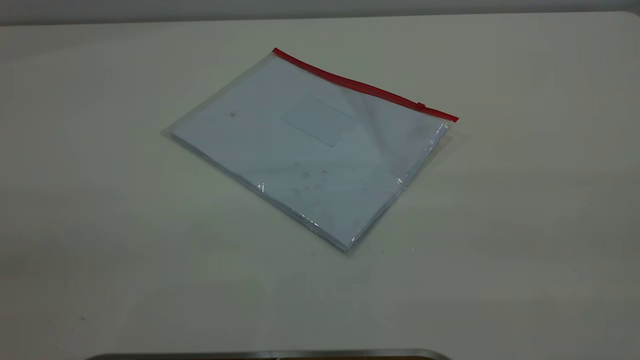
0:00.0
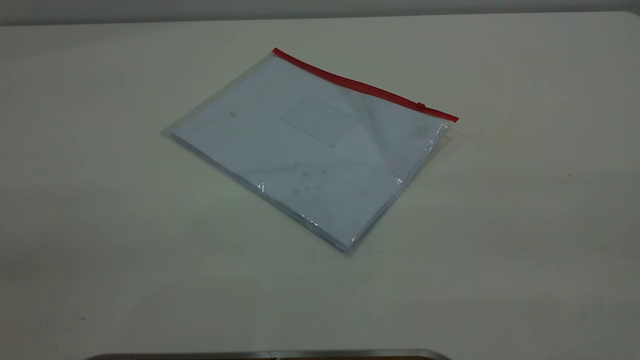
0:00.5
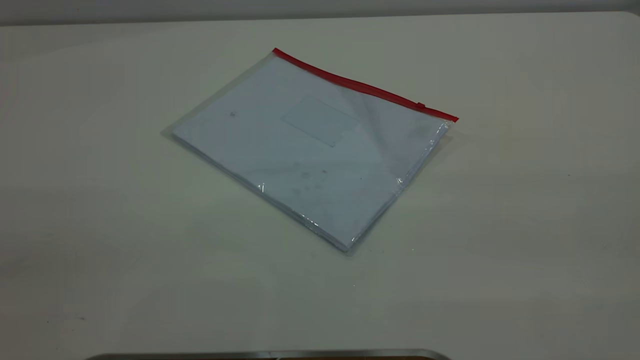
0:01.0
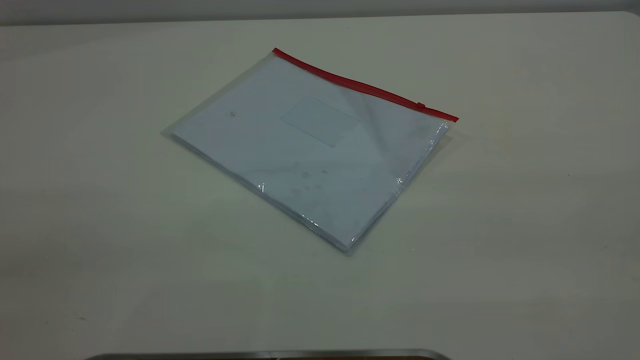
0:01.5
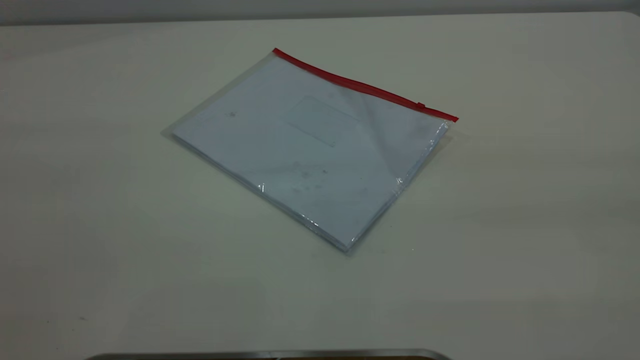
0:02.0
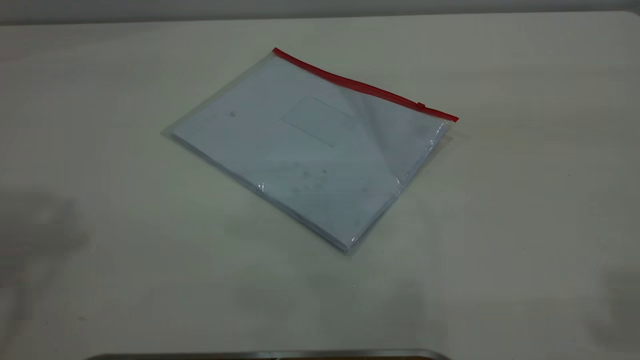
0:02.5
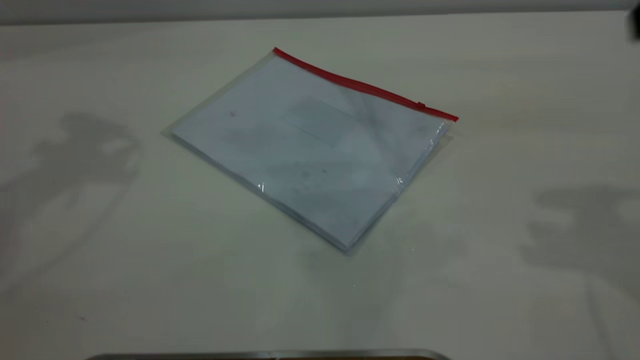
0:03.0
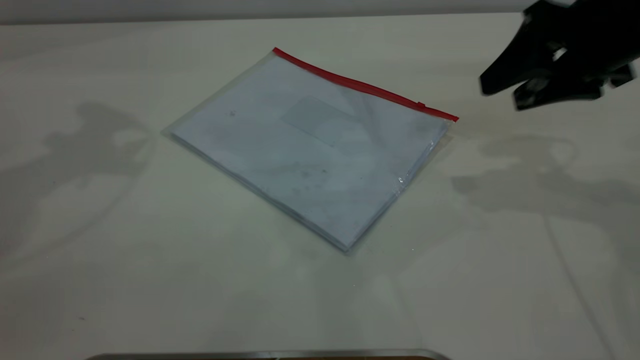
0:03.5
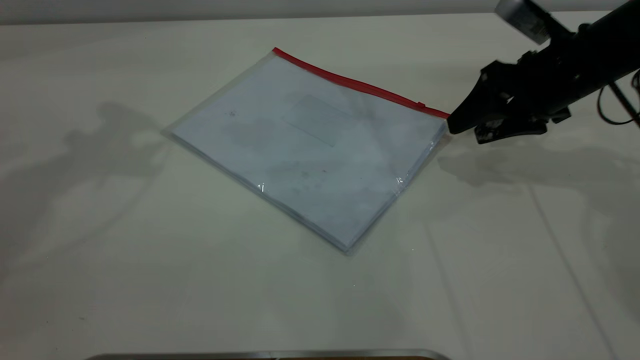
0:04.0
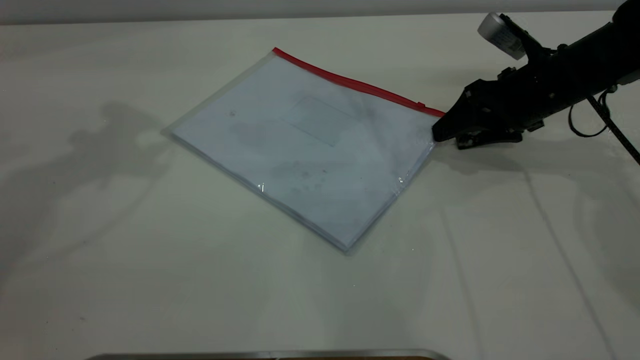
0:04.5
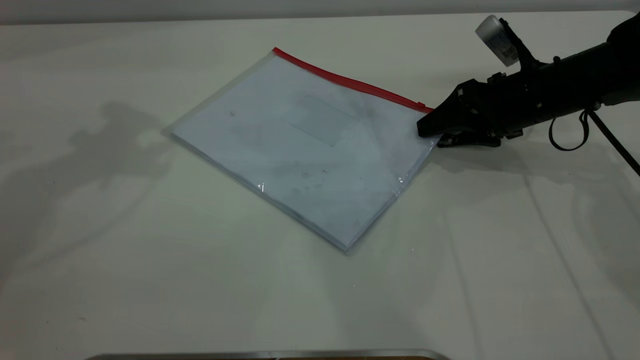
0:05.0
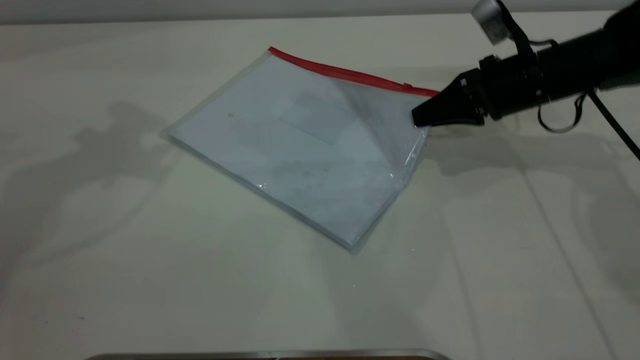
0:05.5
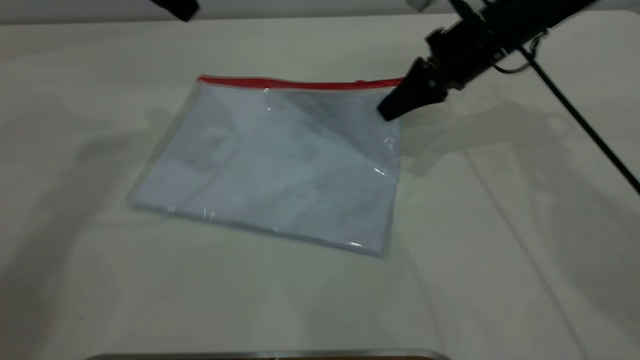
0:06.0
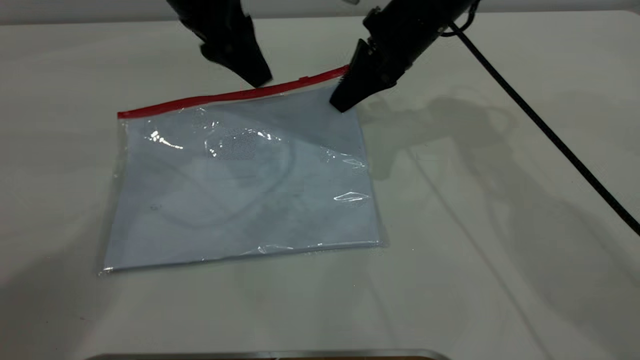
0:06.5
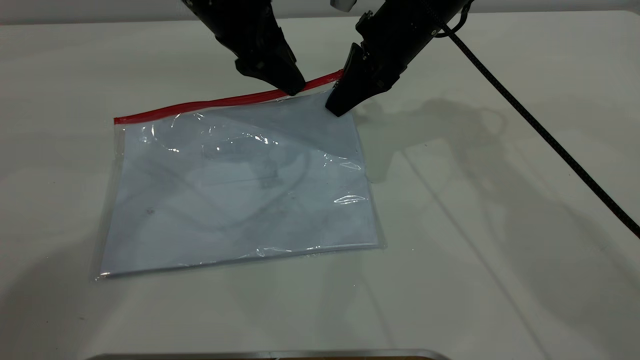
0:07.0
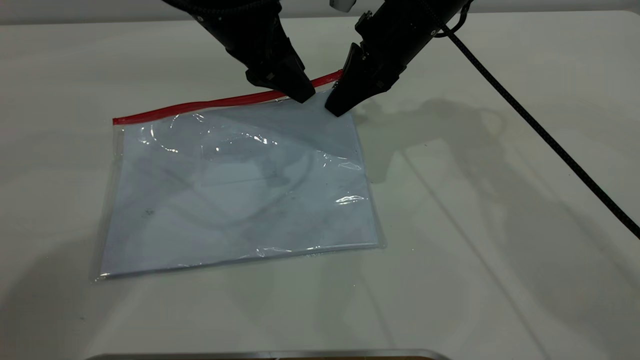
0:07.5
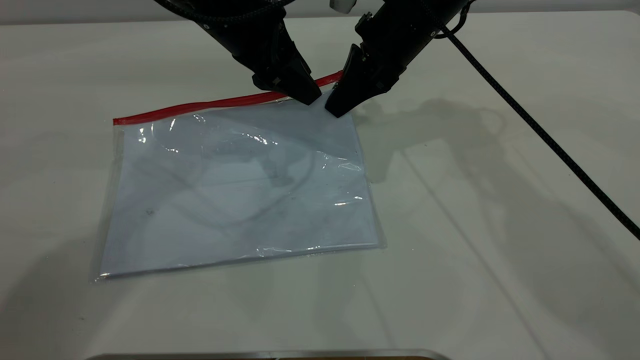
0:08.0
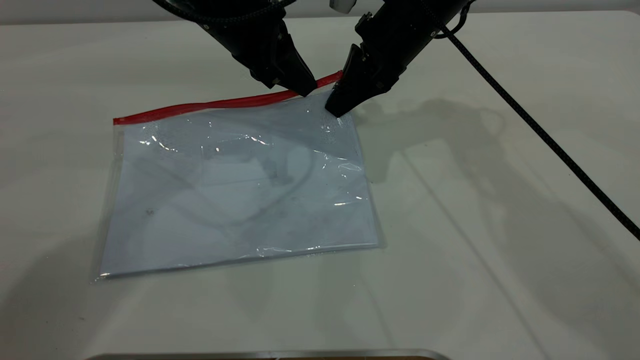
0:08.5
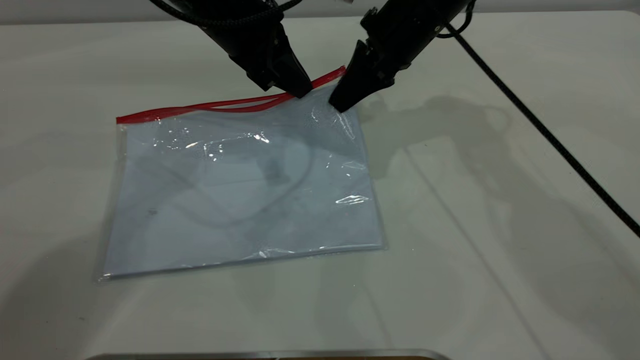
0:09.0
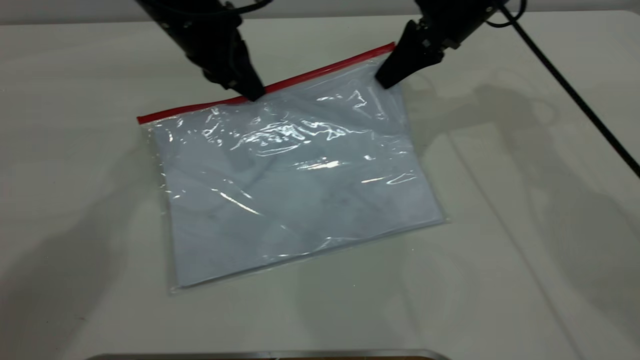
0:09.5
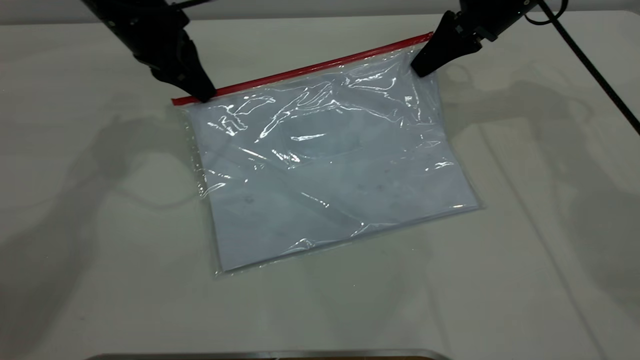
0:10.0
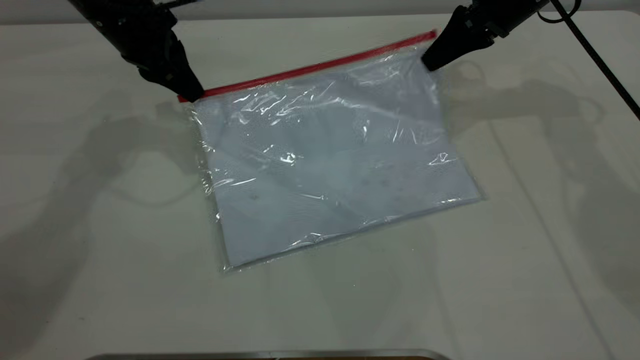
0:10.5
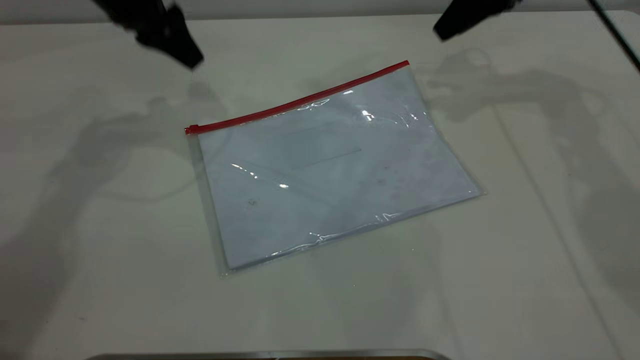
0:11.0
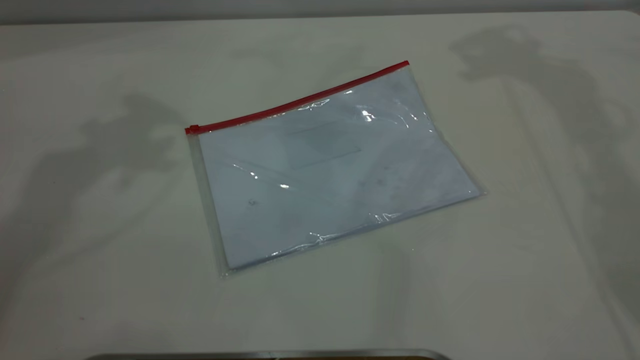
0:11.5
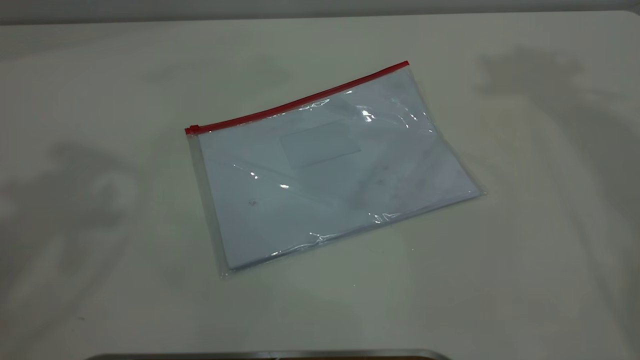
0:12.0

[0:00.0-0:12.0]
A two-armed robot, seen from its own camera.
Step, 0:00.0 to 0:06.0: Pick up the transparent plastic bag with the right gripper.
Step, 0:06.5 to 0:10.0: Pulling up the zipper on the transparent plastic bag with the left gripper to close it.
Step, 0:10.5 to 0:11.5: Place the transparent plastic bag.
0:02.0 to 0:04.0: The right gripper goes about 50 cm forward and downward.
0:04.0 to 0:06.0: The right gripper shifts approximately 10 cm to the left and forward, and closes its fingers; the left gripper shifts about 10 cm to the right and downward.
0:06.0 to 0:08.0: The right gripper is displaced to the left by about 5 cm, while the left gripper moves downward and to the right, approximately 15 cm.
0:08.0 to 0:10.0: The left gripper is displaced to the left by approximately 10 cm, and closes its fingers. The right gripper is displaced to the right by about 10 cm.
0:10.0 to 0:12.0: The left gripper is displaced upward and backward by approximately 40 cm, and opens its fingers, while the right gripper goes approximately 40 cm upward, and opens up.

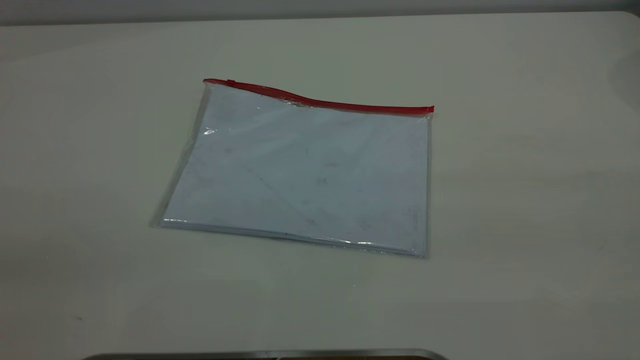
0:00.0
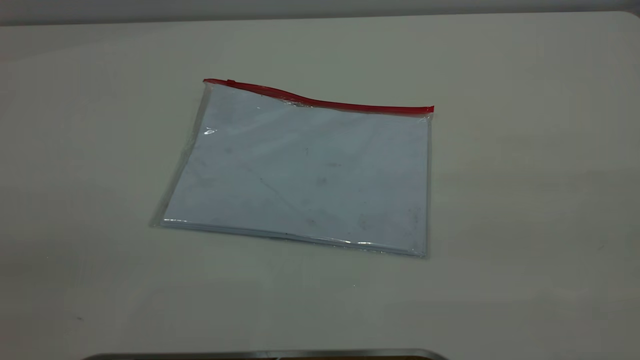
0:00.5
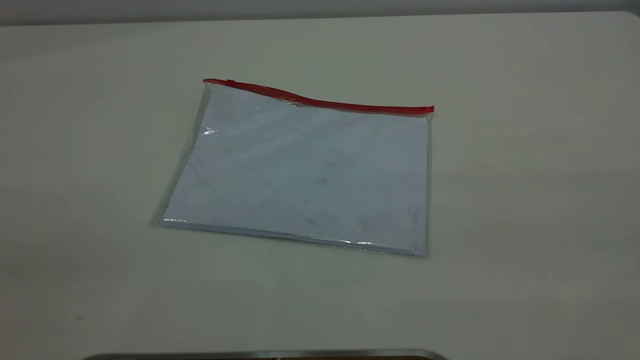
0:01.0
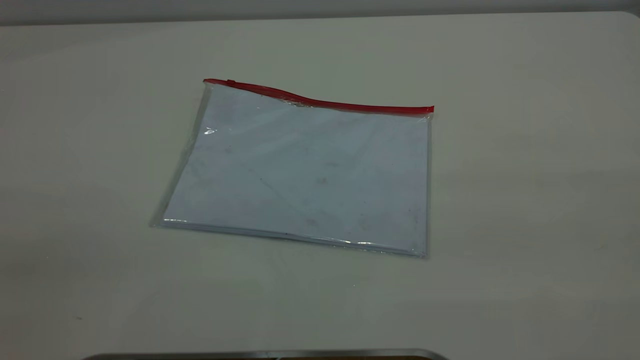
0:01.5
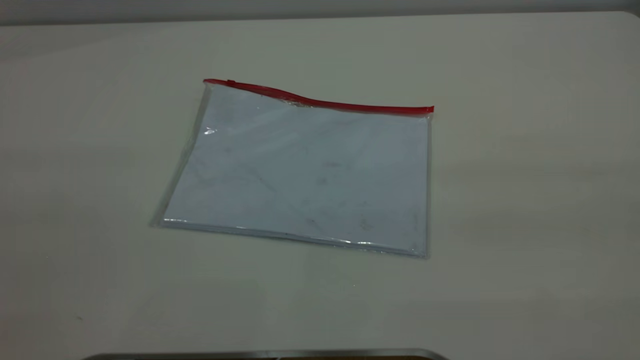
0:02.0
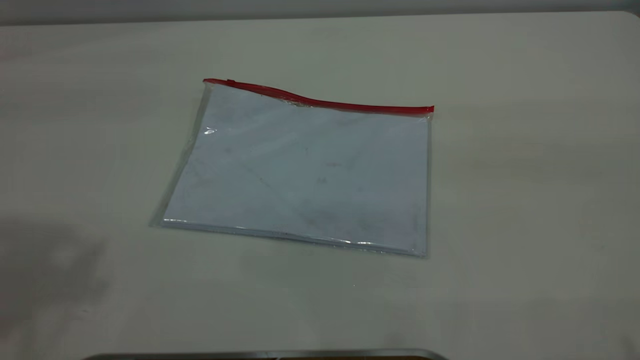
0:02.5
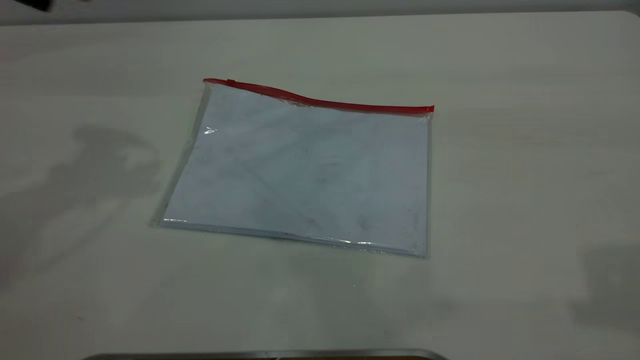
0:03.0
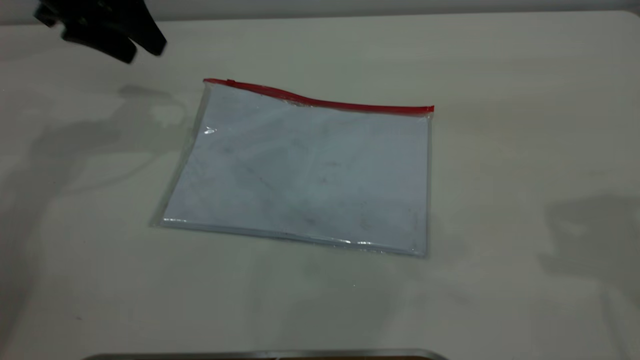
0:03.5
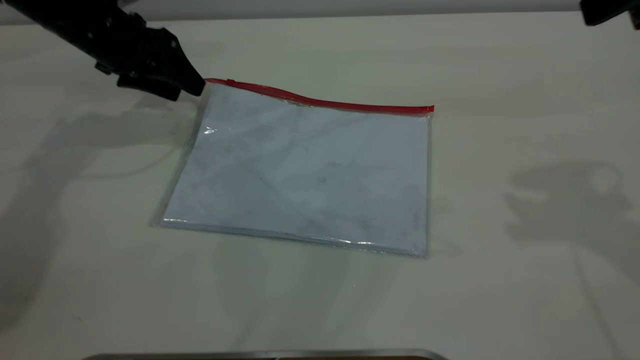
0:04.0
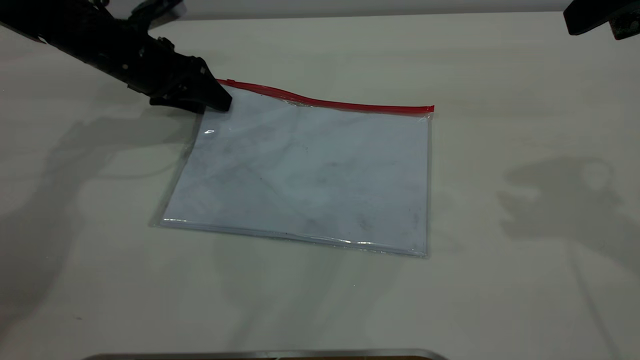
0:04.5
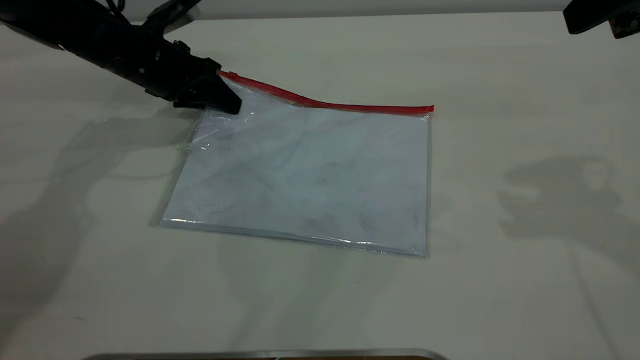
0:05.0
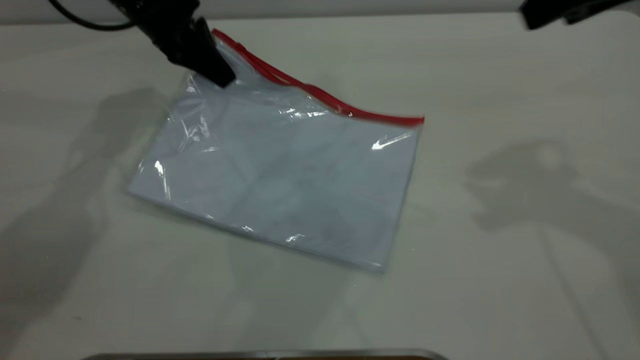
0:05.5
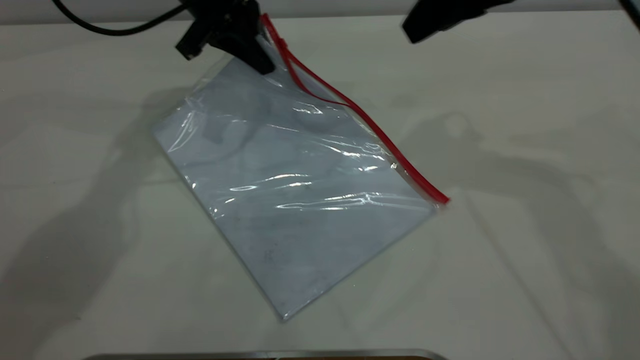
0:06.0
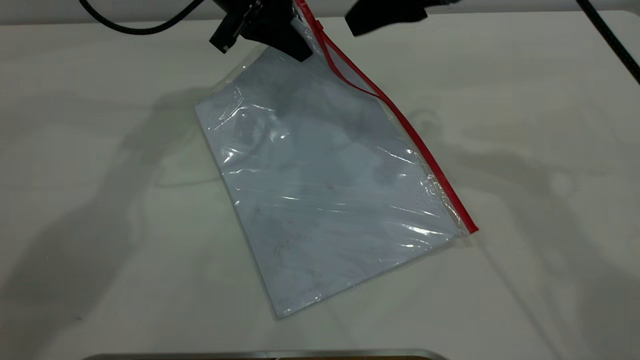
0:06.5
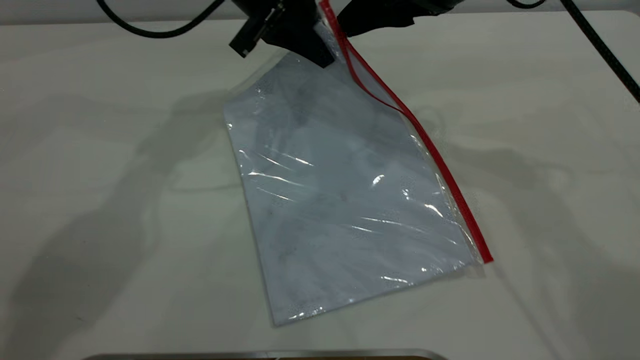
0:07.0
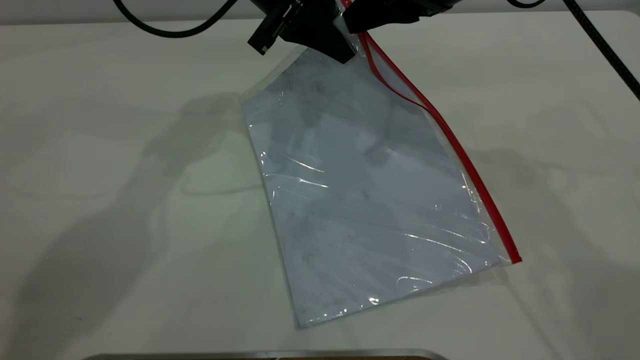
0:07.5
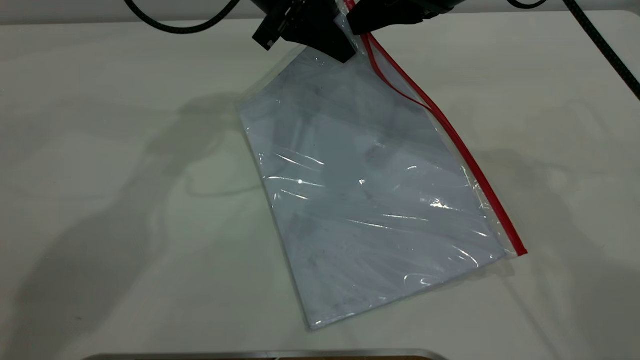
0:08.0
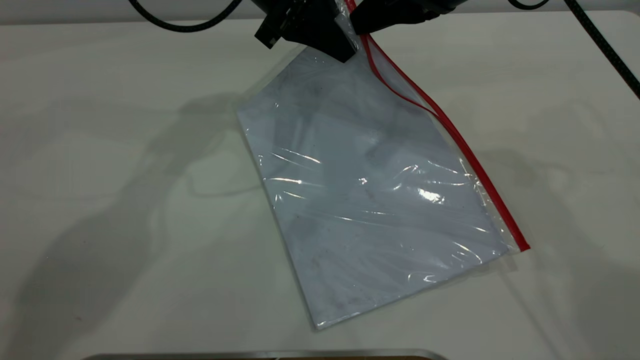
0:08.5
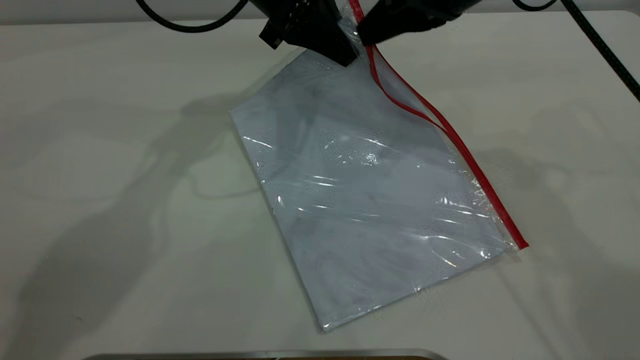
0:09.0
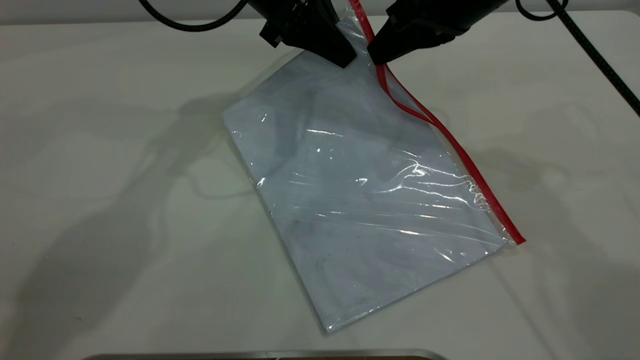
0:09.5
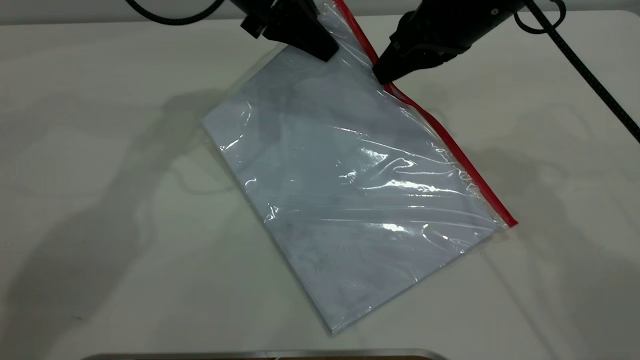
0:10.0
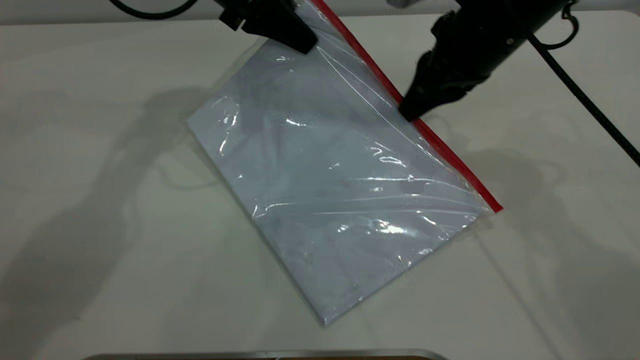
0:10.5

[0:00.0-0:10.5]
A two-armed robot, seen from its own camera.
Step, 0:00.0 to 0:05.0: Pick up the transparent plastic bag with the left gripper.
0:02.0 to 0:04.0: The left gripper travels forward and downward by approximately 50 cm.
0:04.0 to 0:06.5: The left gripper is displaced to the right and upward by some 15 cm, and closes up. The right gripper goes roughly 20 cm to the left, forward and downward.
0:06.5 to 0:08.5: The right gripper closes up.
0:08.5 to 0:10.5: The right gripper heads downward, covering approximately 5 cm; the left gripper shifts about 5 cm to the left.
